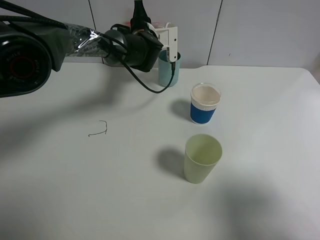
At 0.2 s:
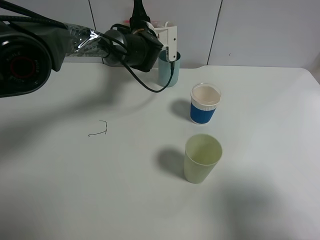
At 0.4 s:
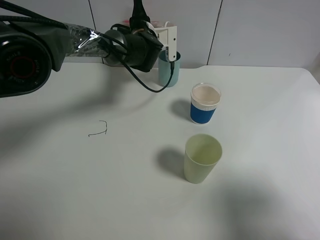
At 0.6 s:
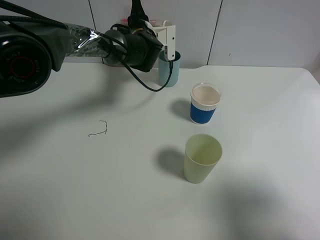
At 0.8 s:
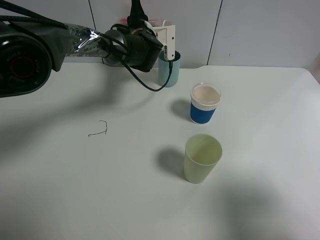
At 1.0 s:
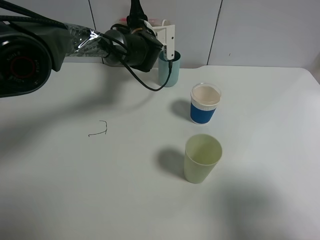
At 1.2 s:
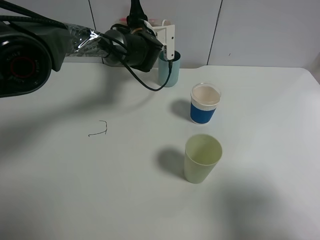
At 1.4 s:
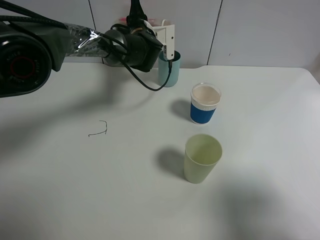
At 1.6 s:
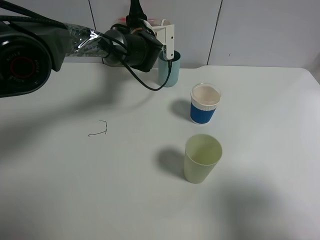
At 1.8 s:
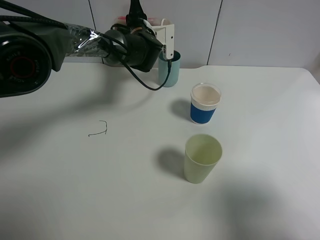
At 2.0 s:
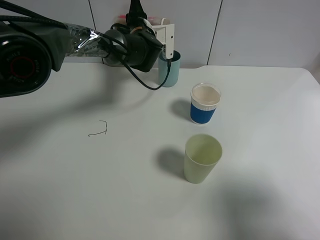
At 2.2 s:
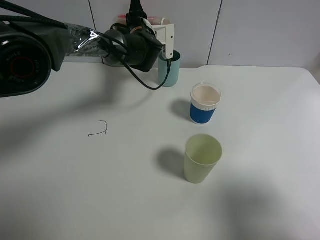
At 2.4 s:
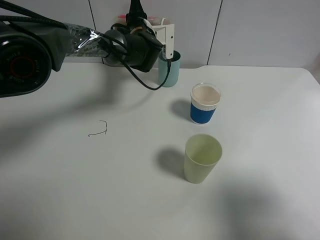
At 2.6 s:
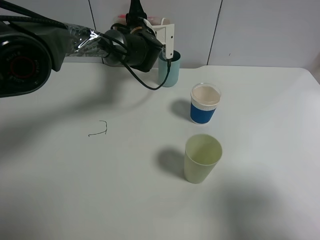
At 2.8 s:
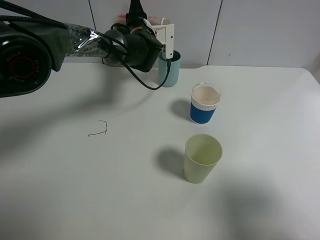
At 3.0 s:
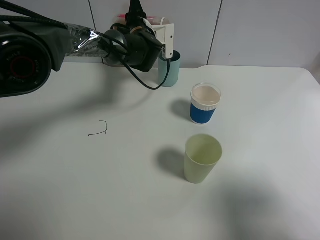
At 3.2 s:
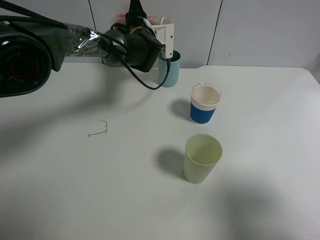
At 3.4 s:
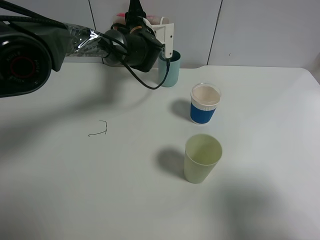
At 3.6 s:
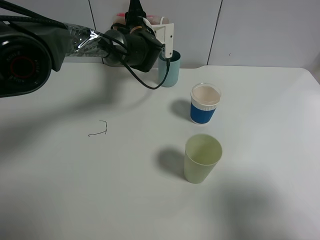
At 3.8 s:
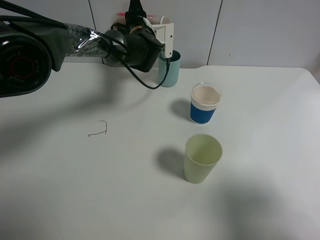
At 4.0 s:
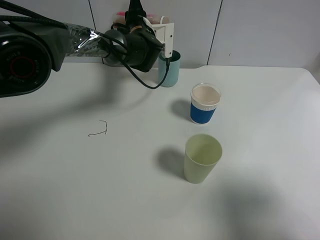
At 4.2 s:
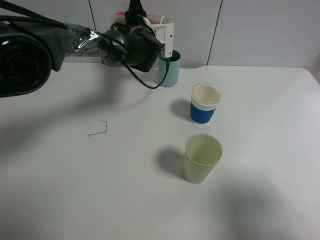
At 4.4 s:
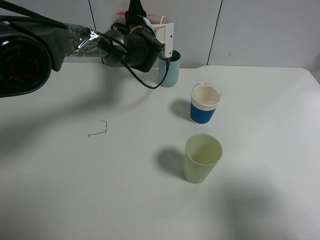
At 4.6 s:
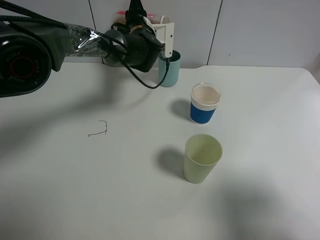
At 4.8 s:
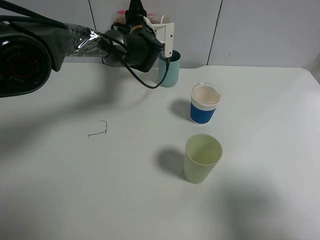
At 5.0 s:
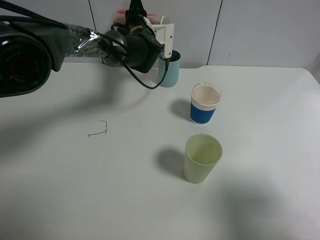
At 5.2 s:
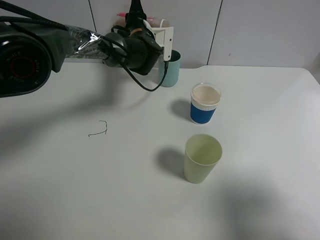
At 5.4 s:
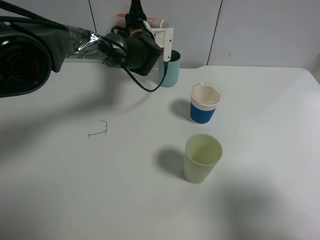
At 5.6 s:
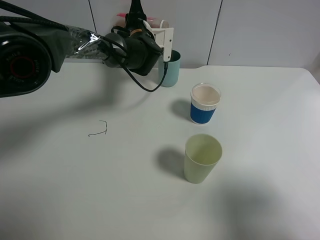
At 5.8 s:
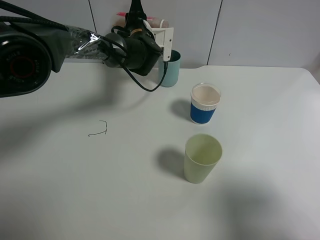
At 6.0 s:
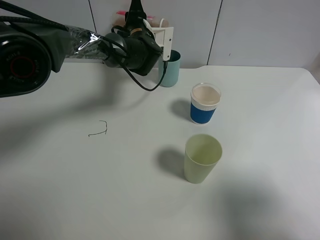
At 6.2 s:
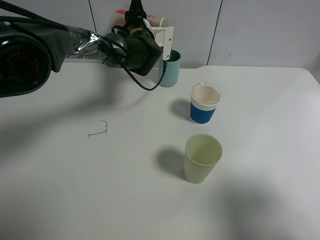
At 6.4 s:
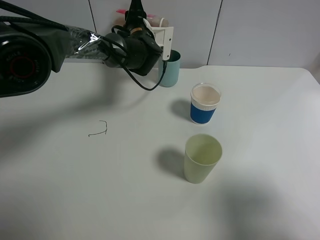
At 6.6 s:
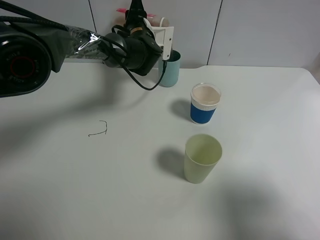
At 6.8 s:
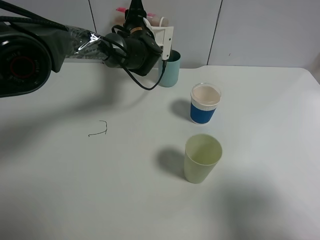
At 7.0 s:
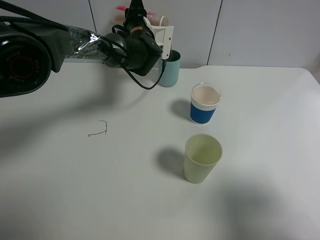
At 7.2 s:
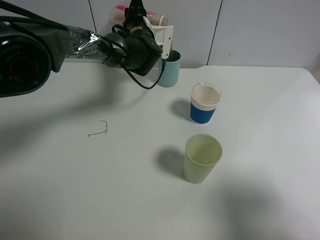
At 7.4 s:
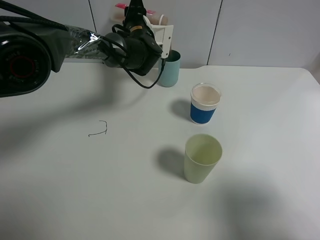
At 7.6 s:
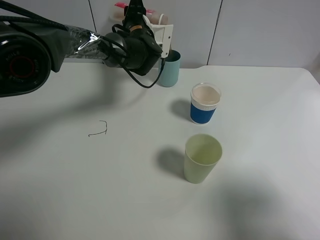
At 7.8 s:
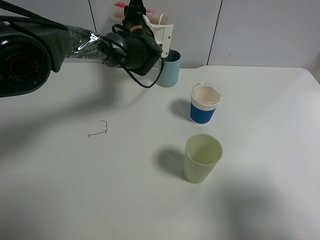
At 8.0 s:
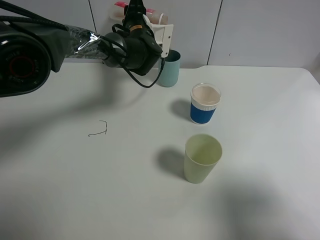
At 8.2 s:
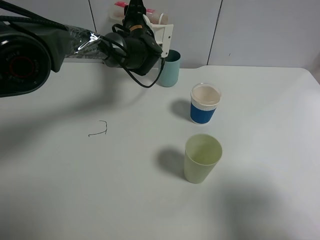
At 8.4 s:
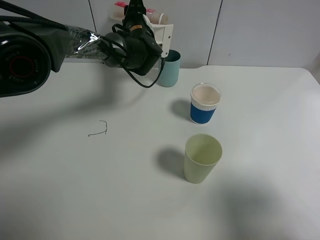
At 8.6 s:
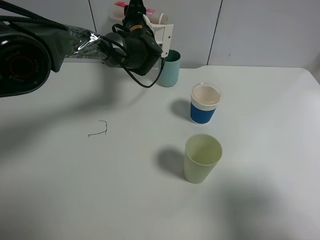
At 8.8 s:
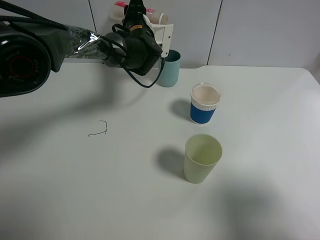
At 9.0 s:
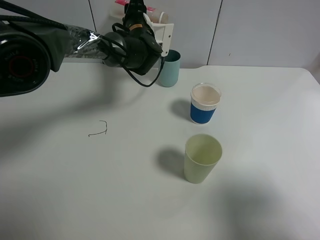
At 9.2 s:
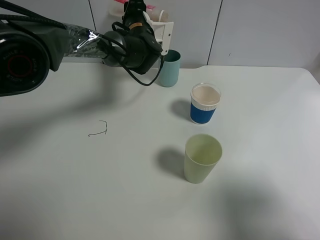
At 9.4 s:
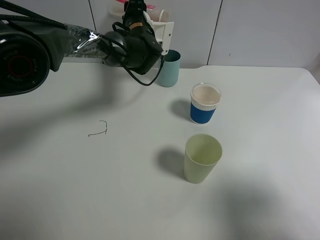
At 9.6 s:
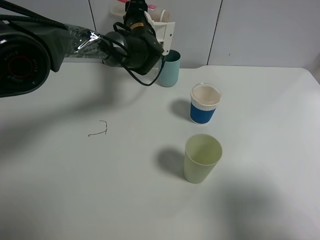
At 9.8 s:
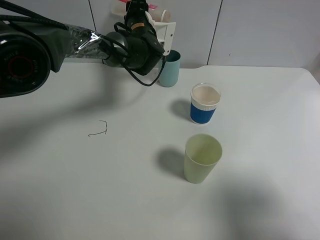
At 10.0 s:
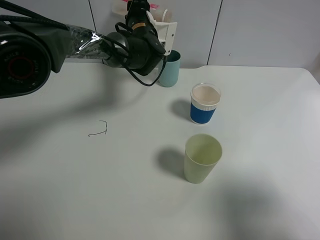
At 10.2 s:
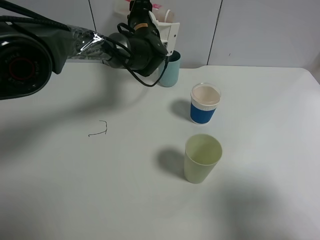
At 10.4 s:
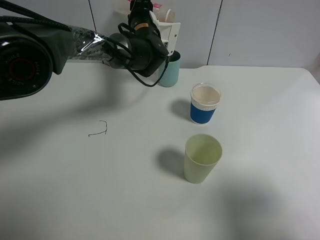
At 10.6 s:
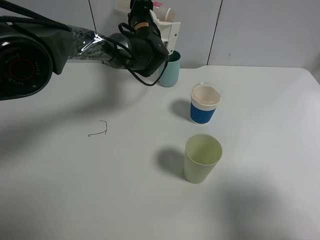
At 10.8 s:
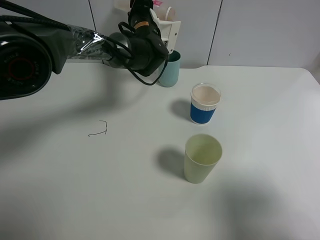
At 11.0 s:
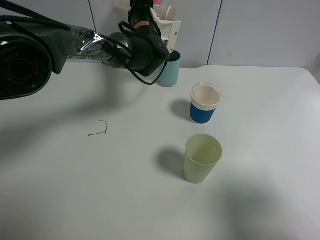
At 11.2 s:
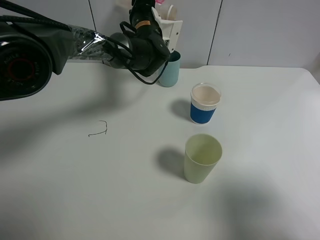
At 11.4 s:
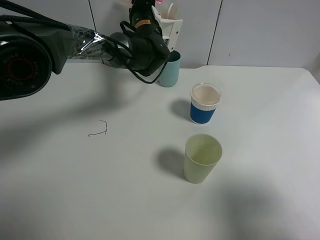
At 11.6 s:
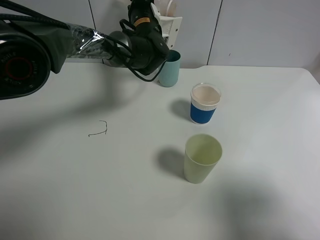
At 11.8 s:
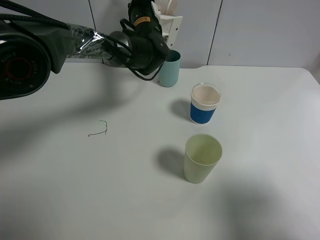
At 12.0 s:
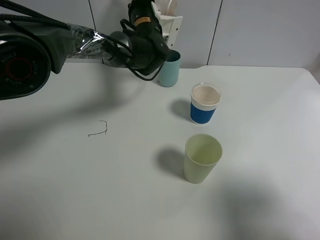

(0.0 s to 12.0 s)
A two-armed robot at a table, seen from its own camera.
Task of the whole recording: use a gripper to hold the bottle of the drink and pour it into a random cup.
0.0 s - 1.6 s: Neither gripper changes place.
1.6 s - 4.4 s: Both grippers stay put.
4.4 s - 6.0 s: The two grippers keep their place.
6.0 s - 7.6 s: The two grippers keep their place.
7.6 s - 9.0 s: Both grippers stay about where they are.
9.0 s - 12.0 s: There are only small adjustments of the grippers.

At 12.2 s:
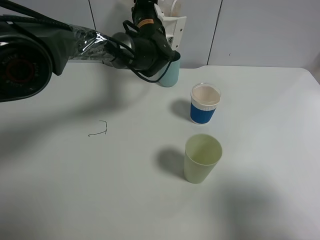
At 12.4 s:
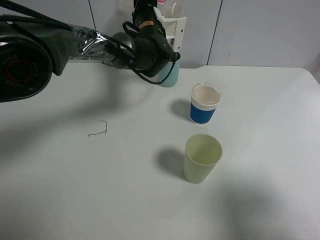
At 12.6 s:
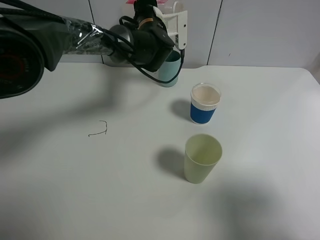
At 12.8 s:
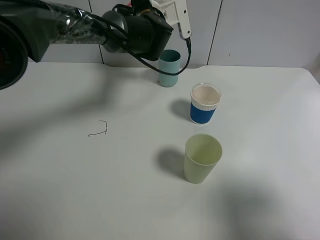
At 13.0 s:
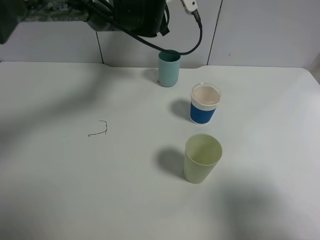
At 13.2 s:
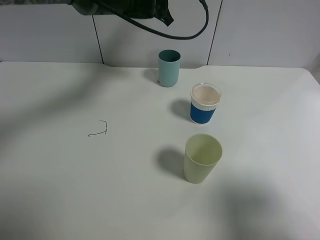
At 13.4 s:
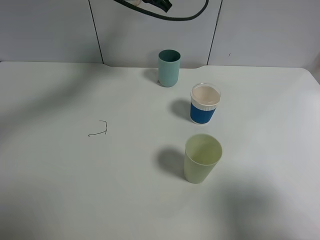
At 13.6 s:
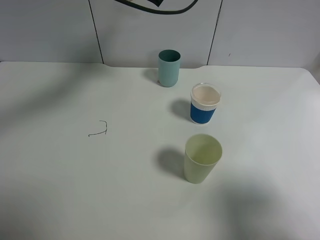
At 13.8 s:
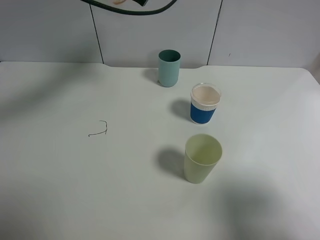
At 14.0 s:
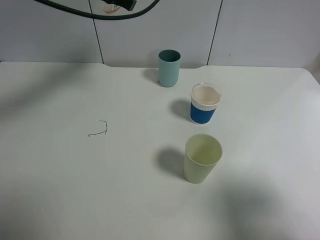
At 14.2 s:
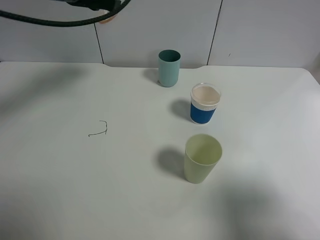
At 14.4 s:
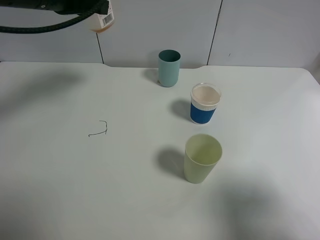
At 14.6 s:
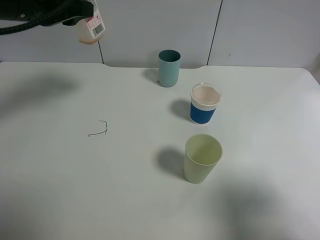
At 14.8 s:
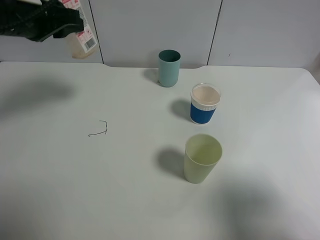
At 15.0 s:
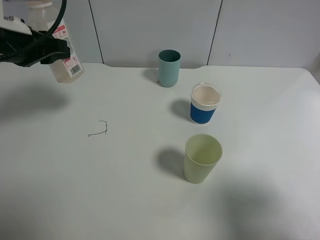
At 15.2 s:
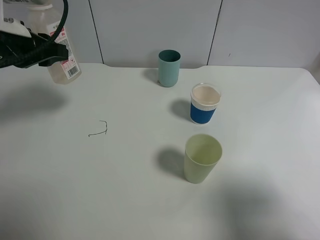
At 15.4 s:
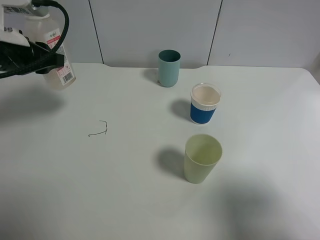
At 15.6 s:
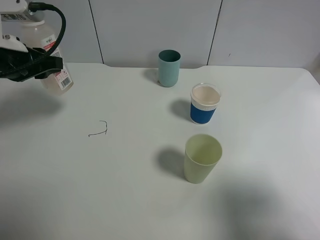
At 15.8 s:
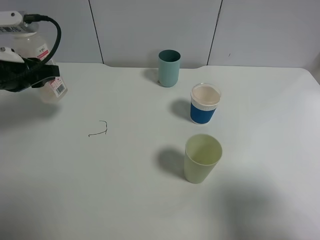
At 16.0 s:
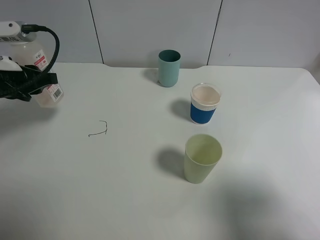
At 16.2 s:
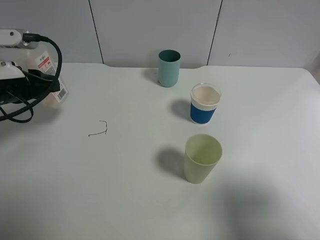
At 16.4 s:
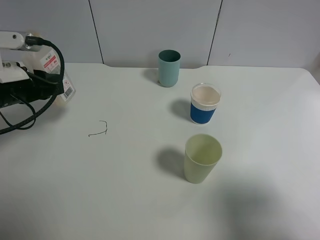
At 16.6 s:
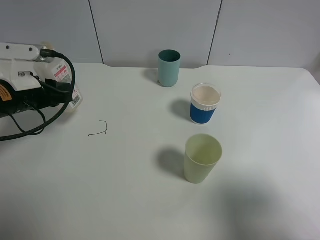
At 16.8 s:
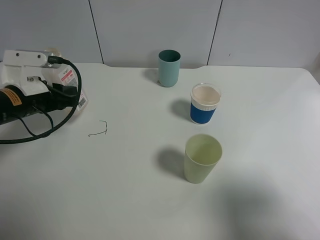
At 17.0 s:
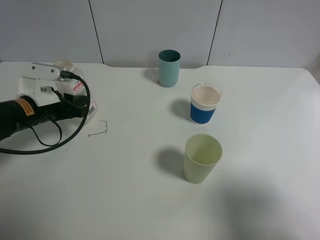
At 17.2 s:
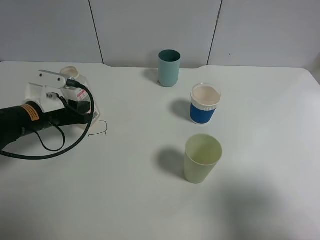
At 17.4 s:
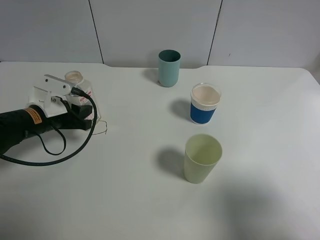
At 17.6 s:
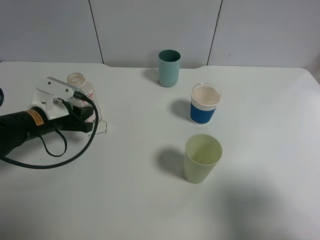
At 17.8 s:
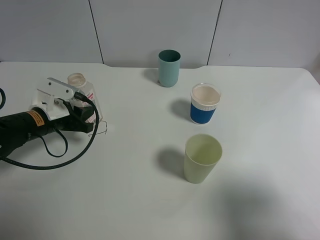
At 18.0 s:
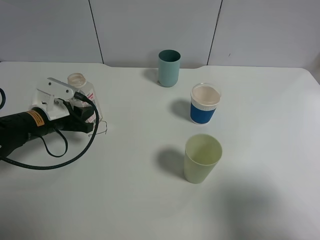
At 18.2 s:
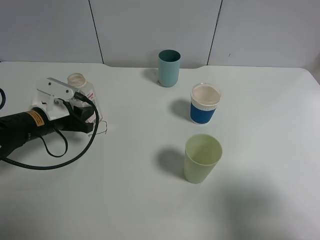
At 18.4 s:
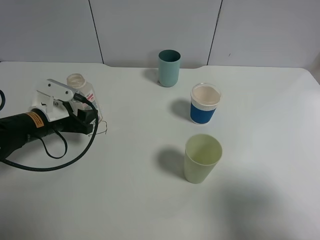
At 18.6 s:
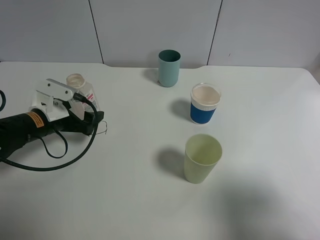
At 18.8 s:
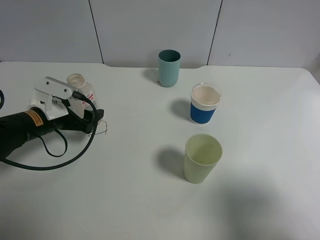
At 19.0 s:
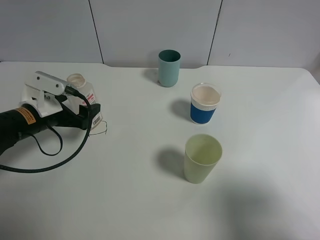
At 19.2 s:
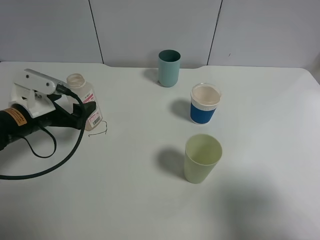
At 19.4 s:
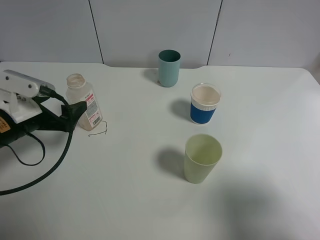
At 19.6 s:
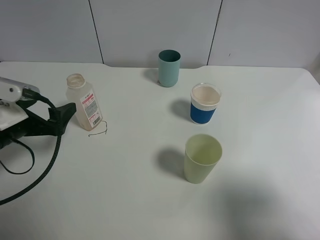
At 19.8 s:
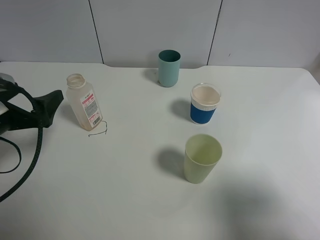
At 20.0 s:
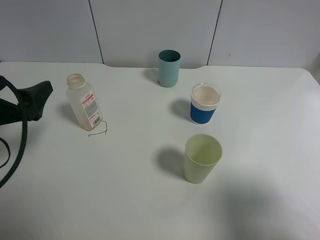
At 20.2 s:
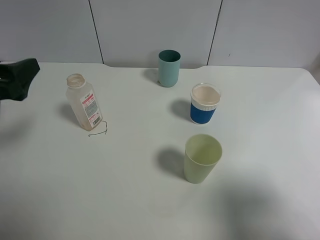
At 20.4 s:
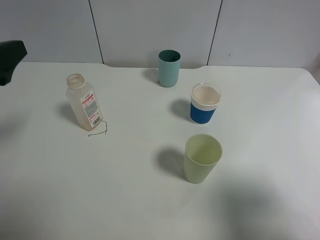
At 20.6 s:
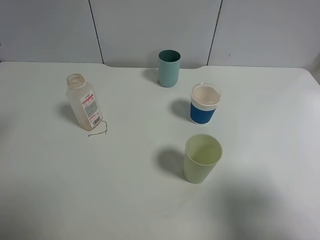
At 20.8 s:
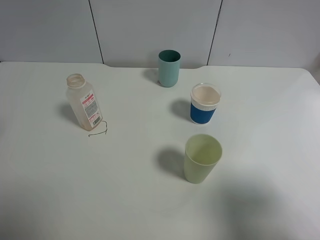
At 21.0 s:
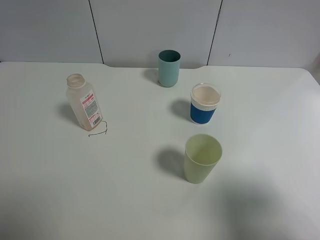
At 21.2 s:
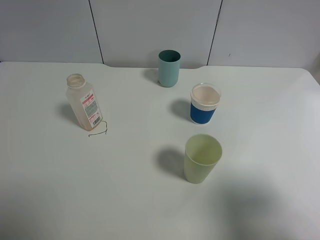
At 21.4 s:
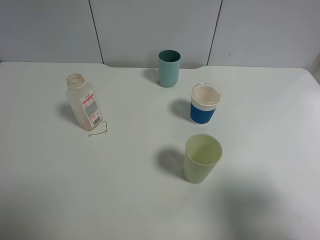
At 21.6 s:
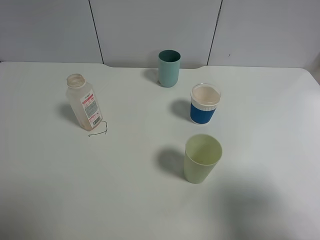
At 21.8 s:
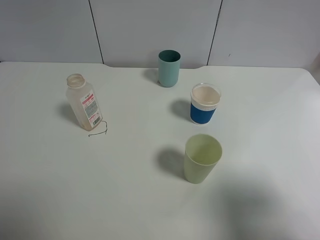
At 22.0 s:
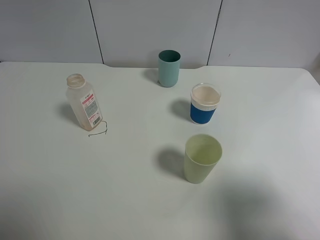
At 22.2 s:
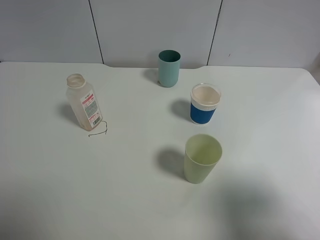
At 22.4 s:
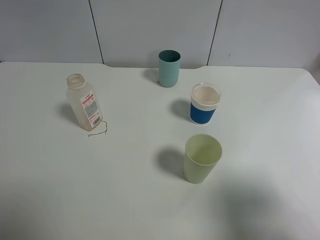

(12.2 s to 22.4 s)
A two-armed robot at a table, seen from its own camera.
Task of the whole recording: use a gripper to hold the bottle of the drink and pour it into a random cup.
Step, 12.6 s - 18.8 s: Place the cranberry juice bottle on the table with the left gripper.
12.2 s - 13.6 s: The left gripper is displaced upward by some 10 cm.
13.6 s - 15.2 s: The left gripper moves to the left and backward, roughly 20 cm.
15.2 s - 16.6 s: The left gripper is displaced downward by about 10 cm.
16.6 s - 18.0 s: The left gripper heads downward, covering approximately 5 cm.
18.0 s - 19.4 s: The left gripper moves backward and upward, approximately 10 cm, and opens up.
19.4 s - 21.0 s: The left gripper moves upward and backward, roughly 25 cm.
